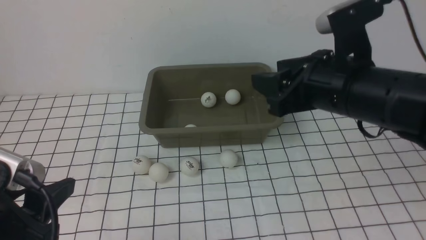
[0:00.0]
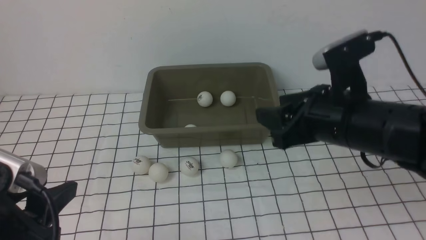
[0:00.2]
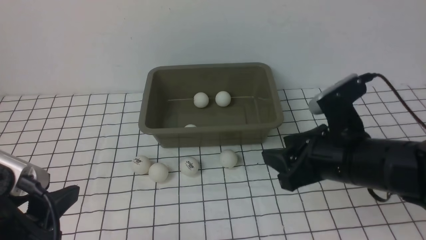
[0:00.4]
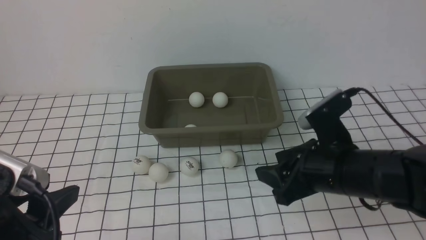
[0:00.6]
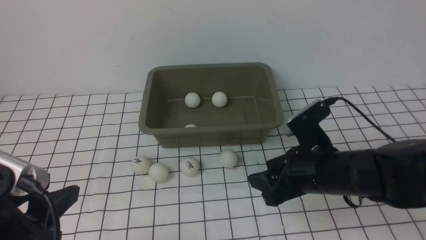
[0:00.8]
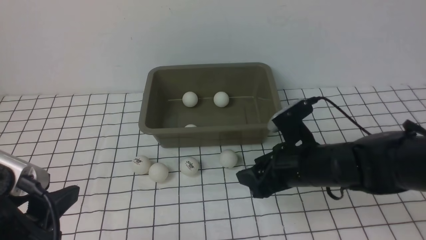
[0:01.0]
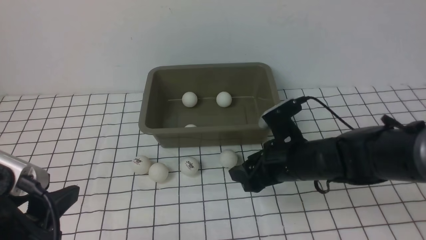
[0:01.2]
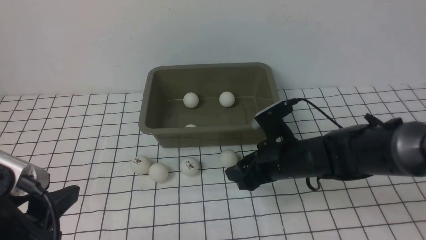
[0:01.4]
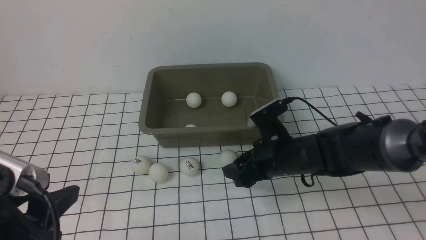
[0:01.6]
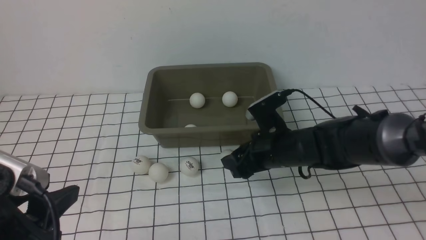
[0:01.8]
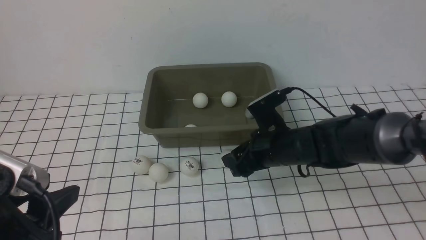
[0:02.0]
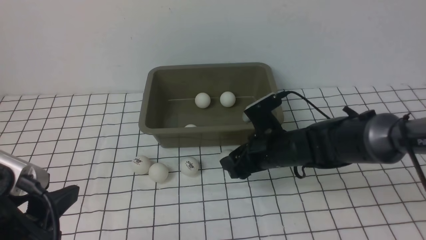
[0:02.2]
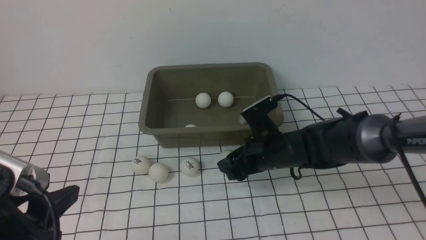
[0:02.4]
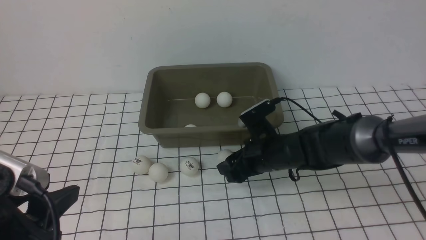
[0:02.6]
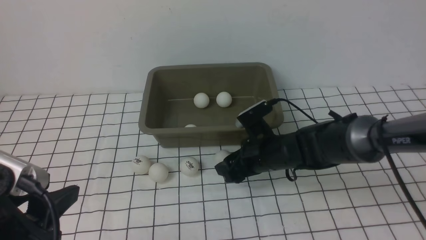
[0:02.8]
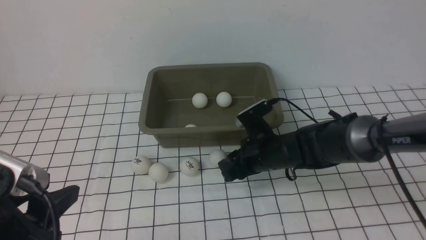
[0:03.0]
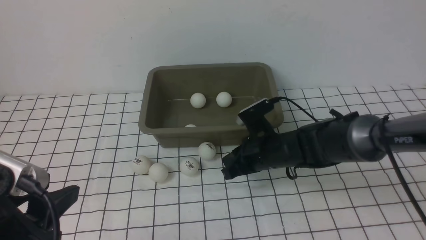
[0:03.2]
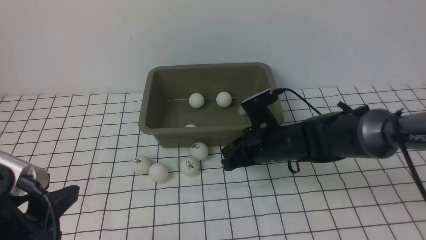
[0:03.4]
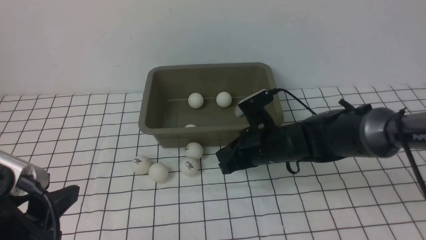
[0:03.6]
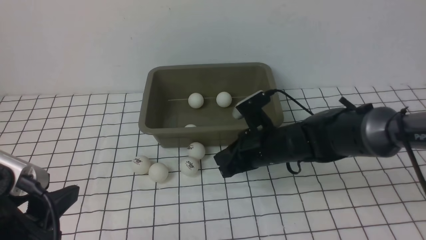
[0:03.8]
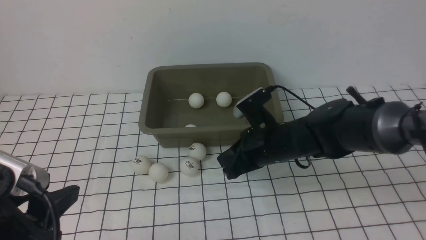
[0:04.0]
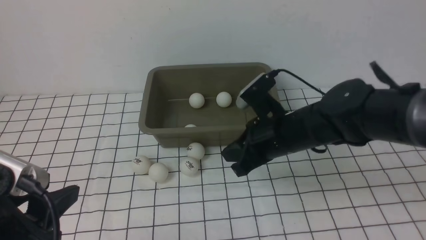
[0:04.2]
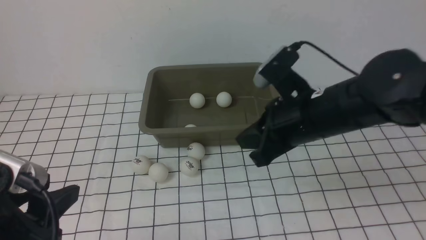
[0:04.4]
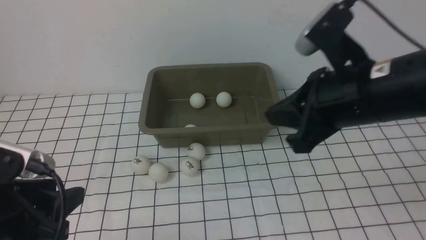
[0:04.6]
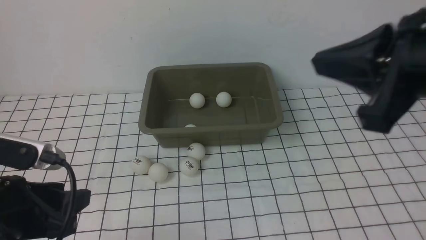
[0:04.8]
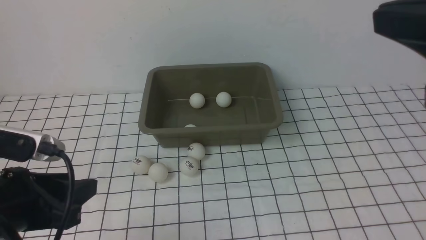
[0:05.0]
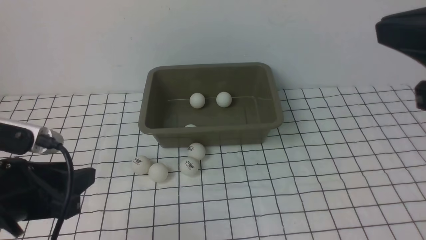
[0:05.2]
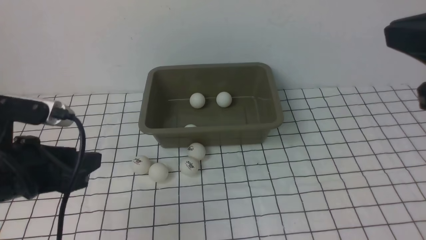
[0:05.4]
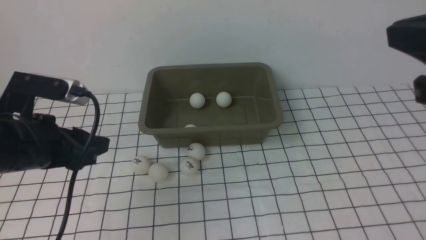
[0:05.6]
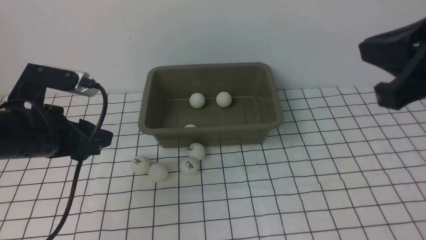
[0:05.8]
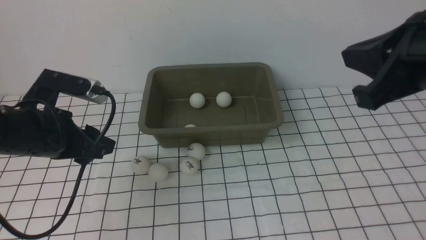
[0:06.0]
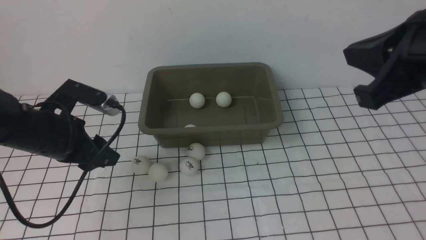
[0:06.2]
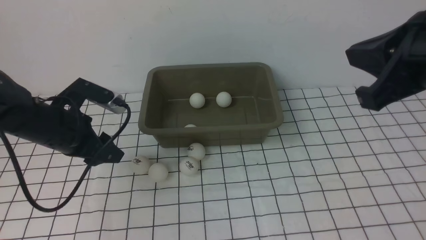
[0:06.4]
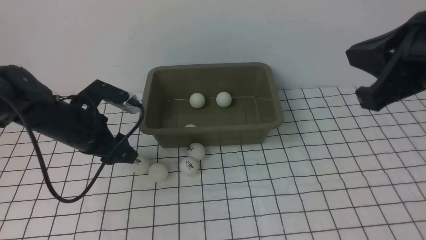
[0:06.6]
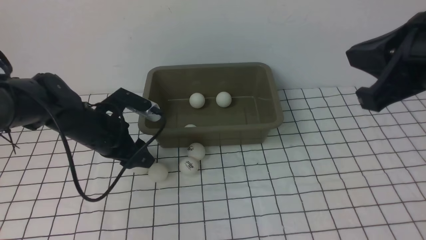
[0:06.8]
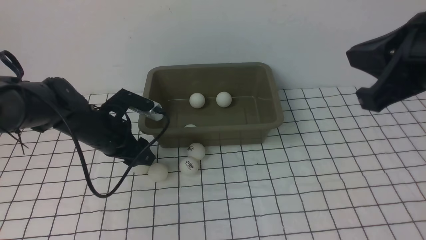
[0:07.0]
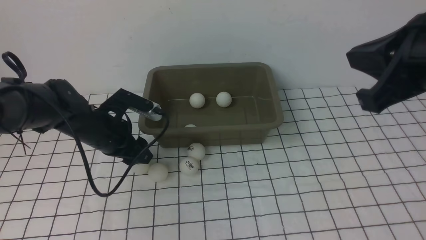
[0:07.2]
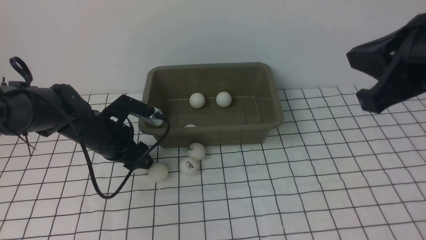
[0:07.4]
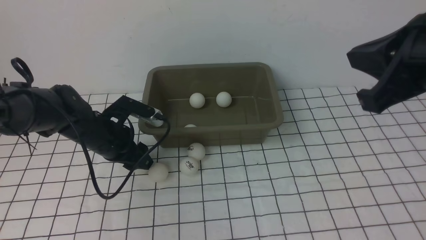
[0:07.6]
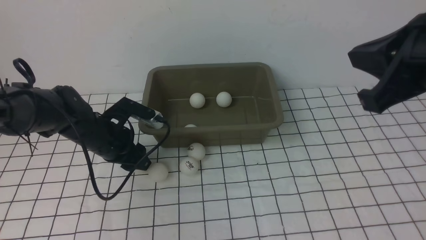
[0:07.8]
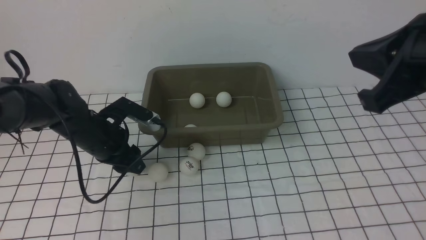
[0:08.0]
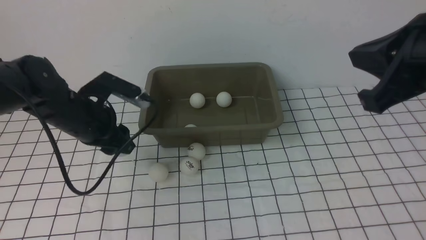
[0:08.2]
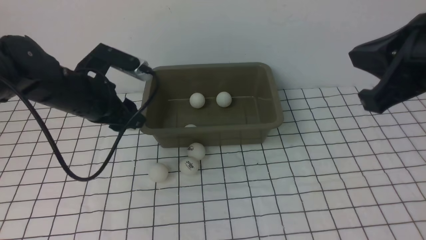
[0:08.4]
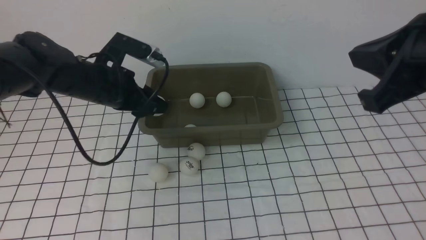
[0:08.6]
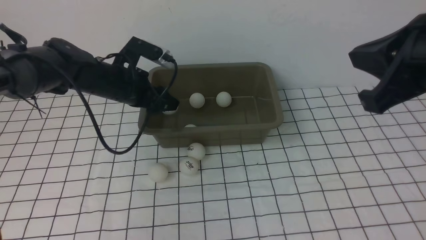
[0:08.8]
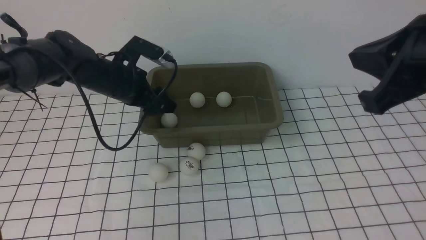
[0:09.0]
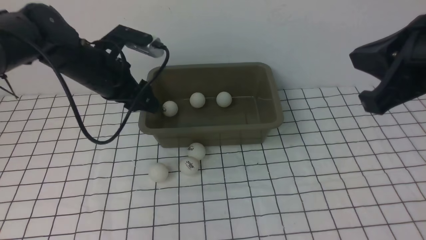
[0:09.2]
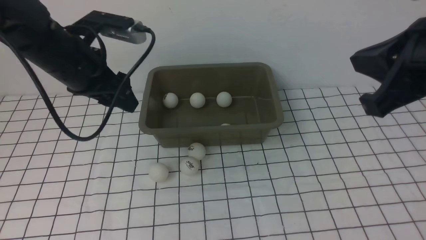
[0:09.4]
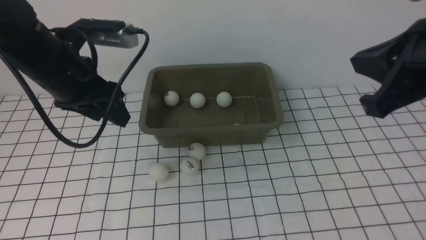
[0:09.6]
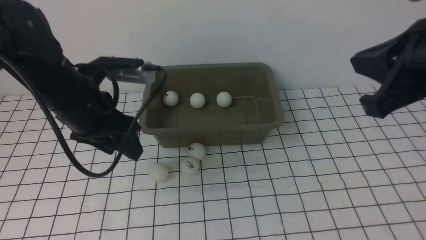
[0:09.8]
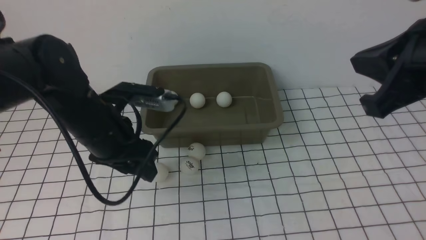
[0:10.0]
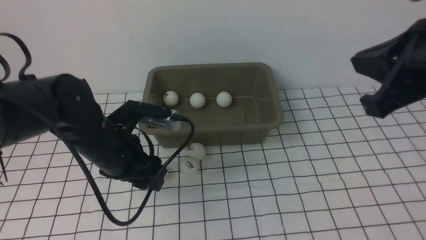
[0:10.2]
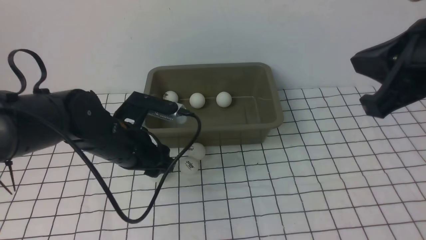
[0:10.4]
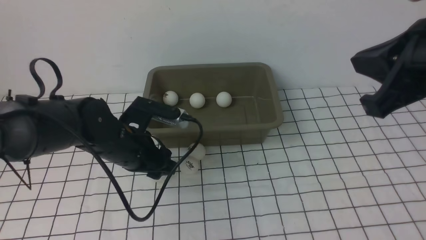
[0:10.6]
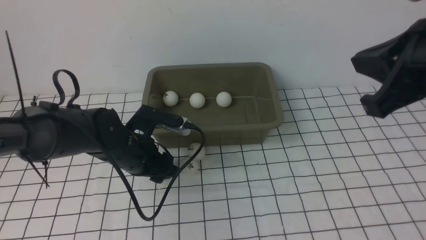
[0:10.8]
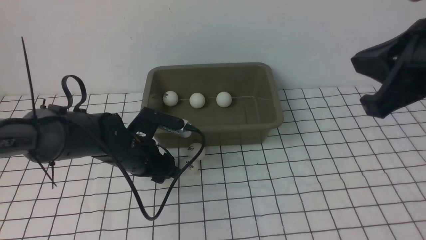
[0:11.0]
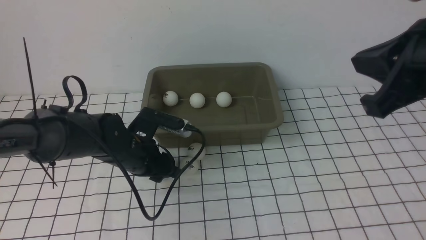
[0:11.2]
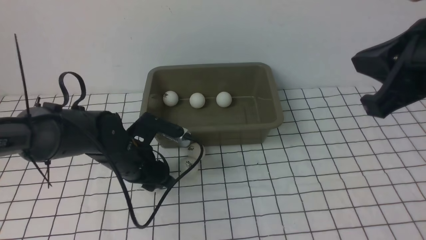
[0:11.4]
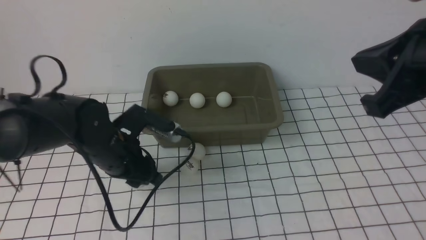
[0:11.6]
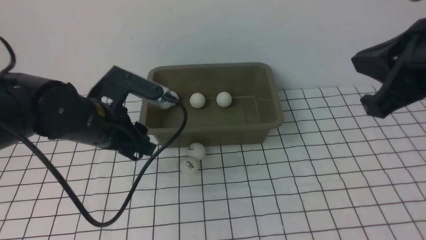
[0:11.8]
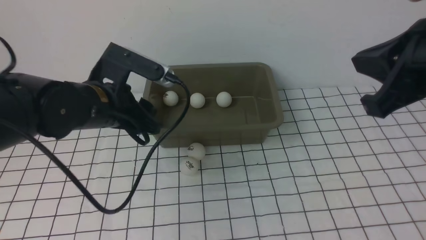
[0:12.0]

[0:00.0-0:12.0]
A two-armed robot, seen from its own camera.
Step, 0:00.0 to 0:08.2: use the left arm to clamp the table tennis ball closest to it.
Step, 0:08.4 to 0:09.0: use the left arm to put the table tennis ball into the box.
Step, 0:09.2 to 0:11.6: use the left arm to clamp the table tennis ball closest to it.
0:00.0 to 0:01.6: The right gripper goes approximately 15 cm downward.
0:01.6 to 0:03.0: The right gripper closes.
0:03.0 to 0:04.4: The right gripper shifts approximately 20 cm upward and backward, and closes.
0:04.4 to 0:06.0: The left gripper travels forward by roughly 15 cm; the right gripper is displaced upward, to the right and backward by roughly 10 cm.
0:06.0 to 0:07.6: The left gripper travels downward and forward by approximately 15 cm.
0:07.6 to 0:09.0: The left gripper travels upward by about 10 cm.
0:09.0 to 0:10.4: The left gripper travels backward and downward by roughly 10 cm.
0:10.4 to 0:12.0: The left gripper moves roughly 5 cm.

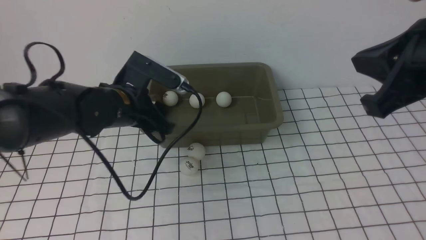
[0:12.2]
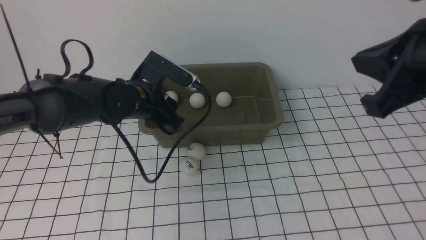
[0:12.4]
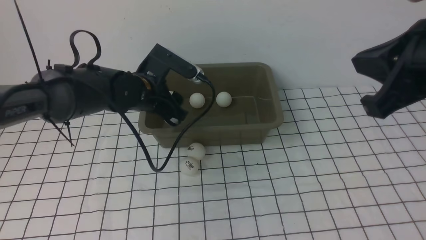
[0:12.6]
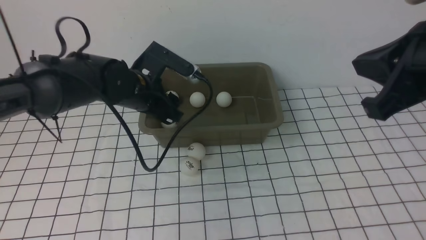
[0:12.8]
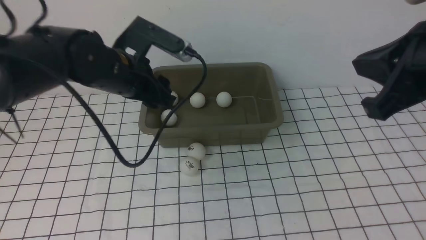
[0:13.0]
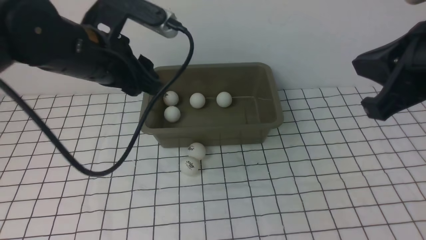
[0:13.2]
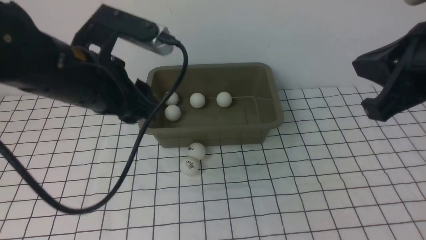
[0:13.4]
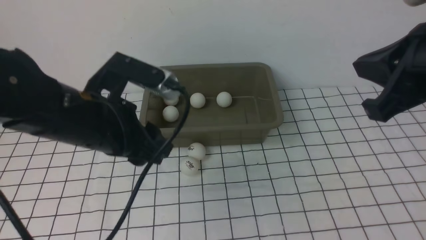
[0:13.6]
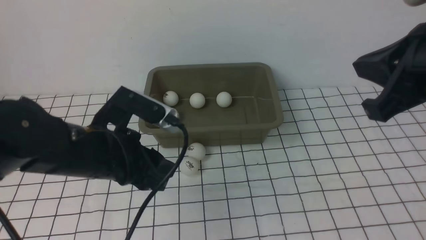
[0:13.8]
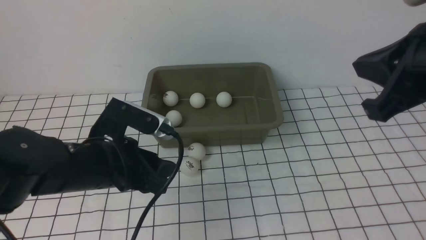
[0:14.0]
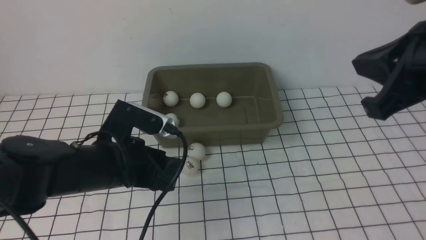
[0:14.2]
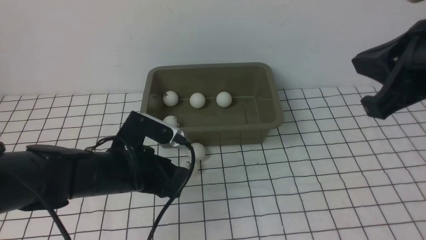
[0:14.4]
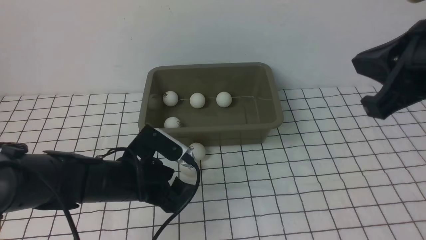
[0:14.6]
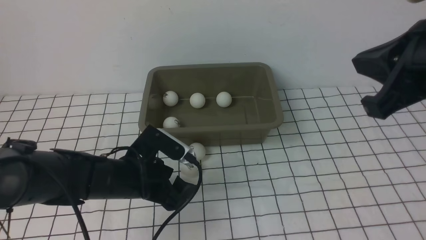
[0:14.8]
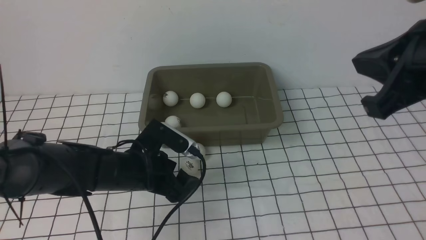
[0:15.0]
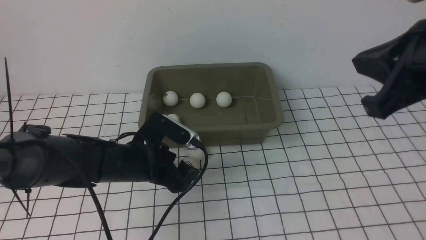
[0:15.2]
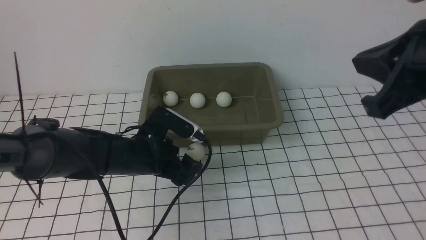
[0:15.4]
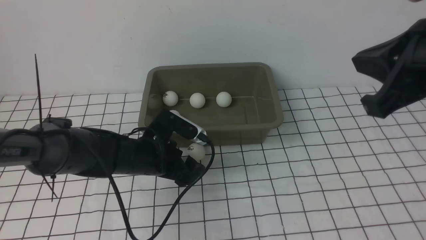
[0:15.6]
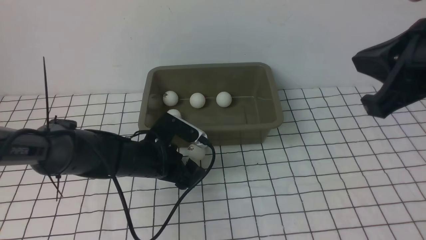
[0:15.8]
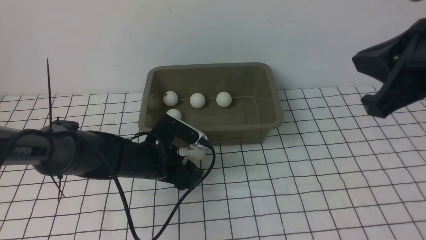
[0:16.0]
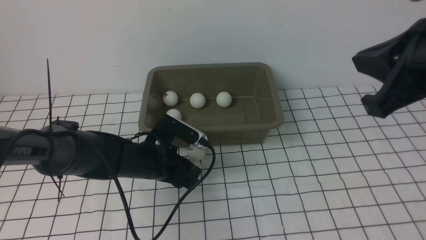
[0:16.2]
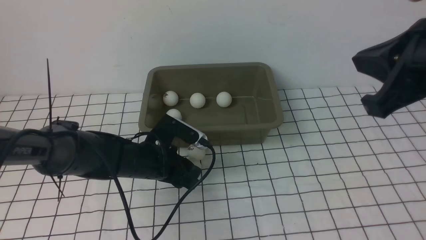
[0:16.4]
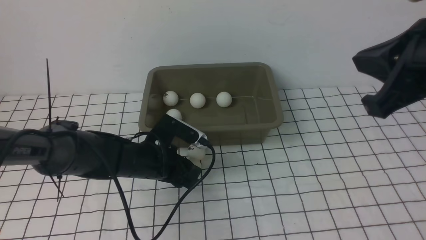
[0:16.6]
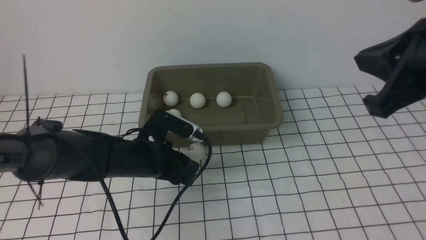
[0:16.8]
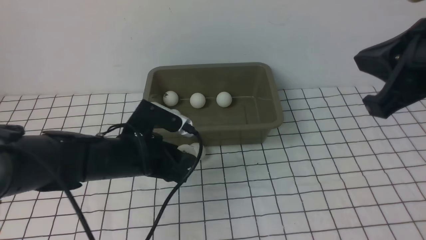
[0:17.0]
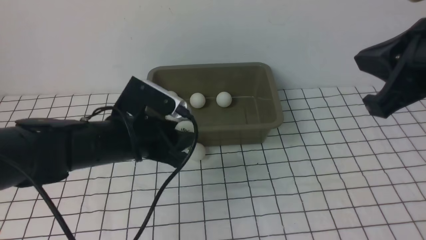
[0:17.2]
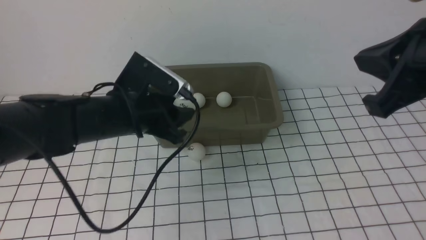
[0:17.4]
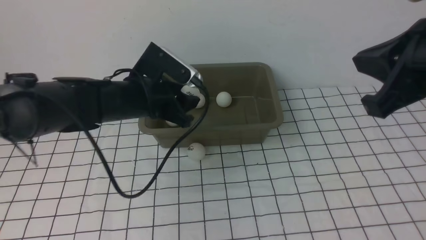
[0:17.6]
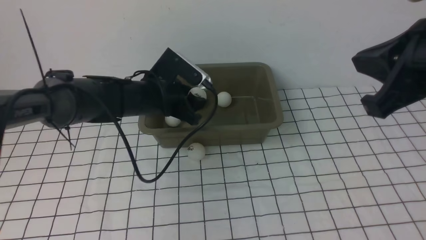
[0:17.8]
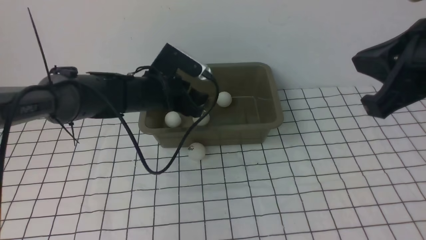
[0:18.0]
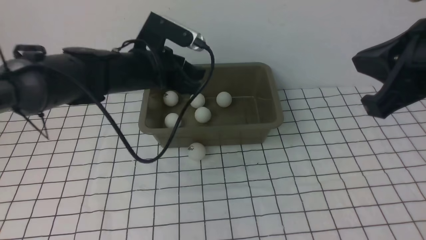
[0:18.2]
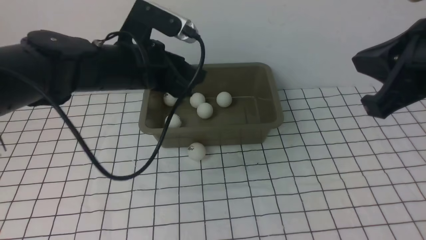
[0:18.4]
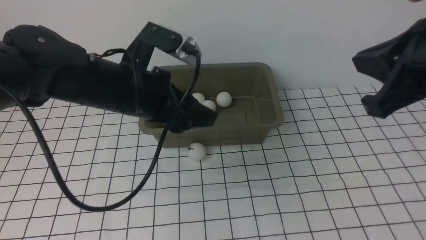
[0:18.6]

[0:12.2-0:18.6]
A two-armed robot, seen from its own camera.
Step, 0:12.2 to 0:12.8: use the left arm to put the table tennis ball into the box.
Step, 0:13.0 to 0:16.8: use the left arm to clamp the table tennis ball closest to it.
Step, 0:17.2 to 0:18.0: use the left arm to put the table tennis ball into the box.
0:12.2 to 0:13.8: The left gripper moves backward, some 10 cm.
0:13.8 to 0:15.4: The left gripper goes some 15 cm downward and forward.
0:15.4 to 0:17.0: The left gripper is displaced upward by approximately 10 cm.
0:17.0 to 0:18.6: The left gripper shifts approximately 10 cm backward.
